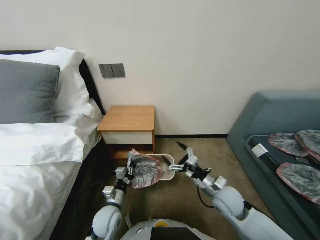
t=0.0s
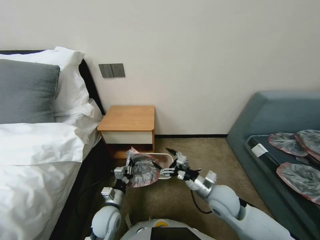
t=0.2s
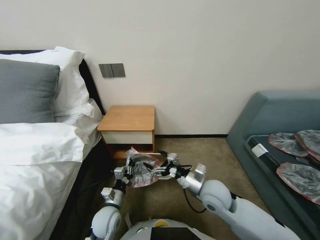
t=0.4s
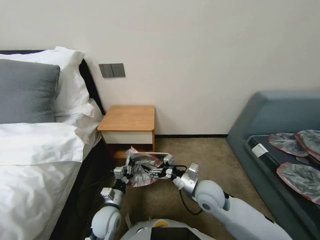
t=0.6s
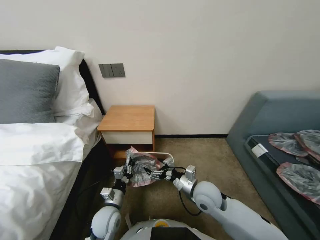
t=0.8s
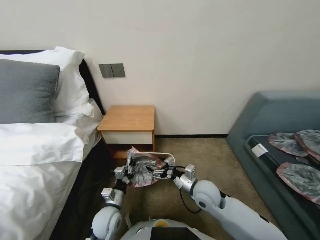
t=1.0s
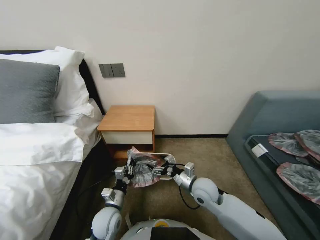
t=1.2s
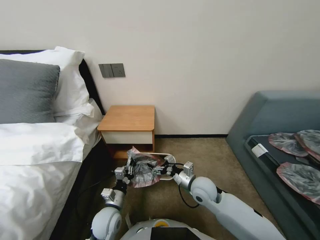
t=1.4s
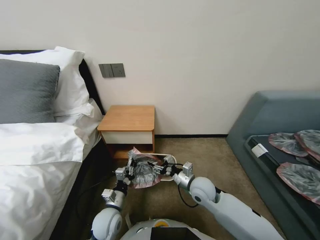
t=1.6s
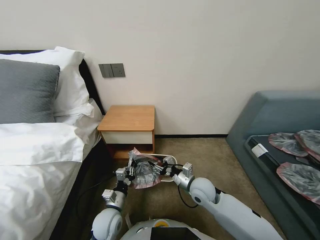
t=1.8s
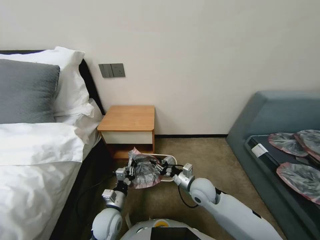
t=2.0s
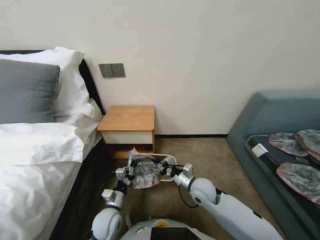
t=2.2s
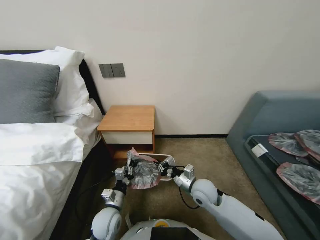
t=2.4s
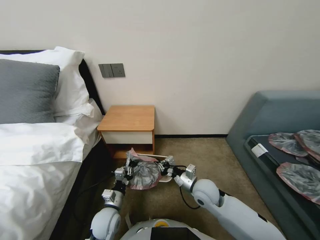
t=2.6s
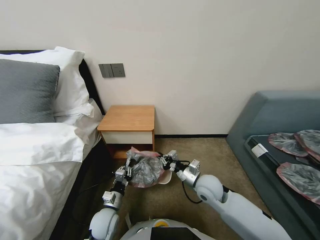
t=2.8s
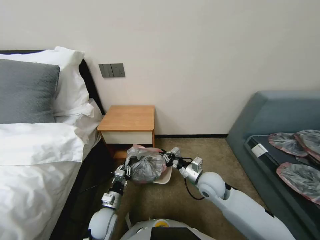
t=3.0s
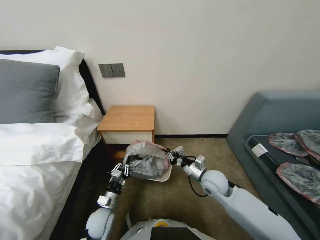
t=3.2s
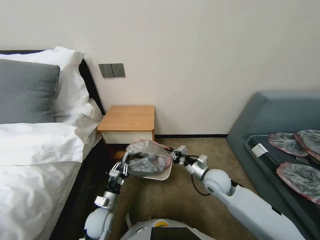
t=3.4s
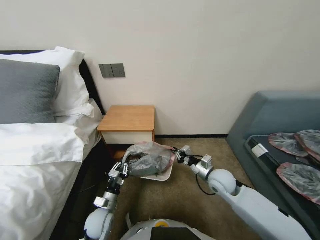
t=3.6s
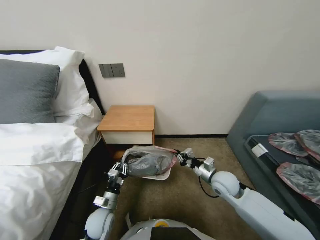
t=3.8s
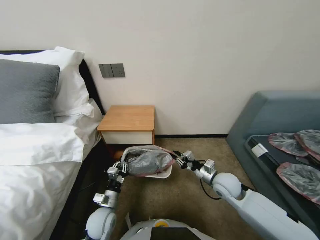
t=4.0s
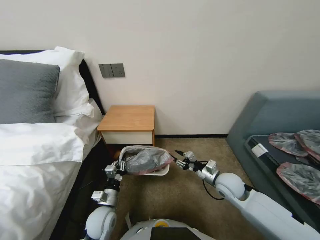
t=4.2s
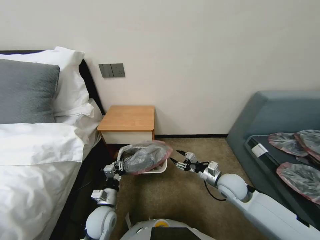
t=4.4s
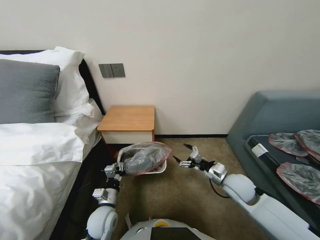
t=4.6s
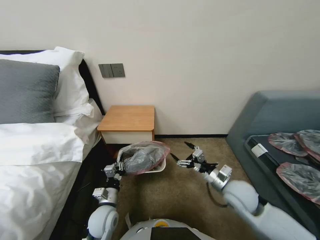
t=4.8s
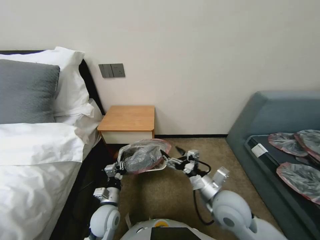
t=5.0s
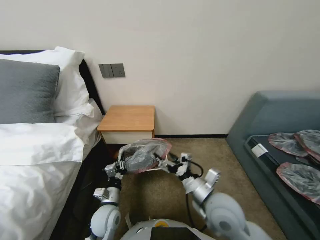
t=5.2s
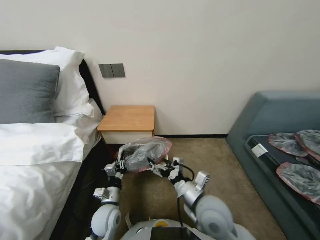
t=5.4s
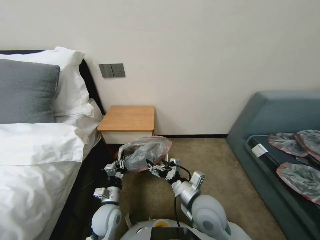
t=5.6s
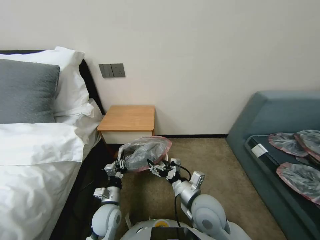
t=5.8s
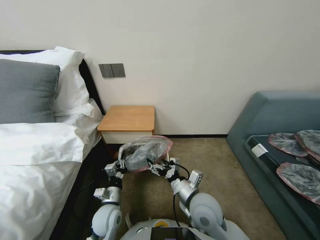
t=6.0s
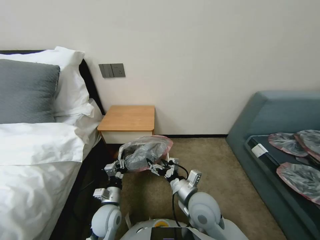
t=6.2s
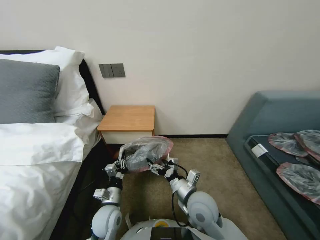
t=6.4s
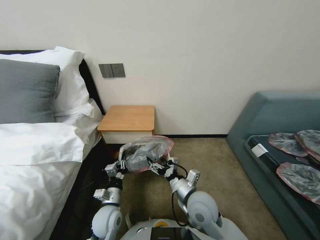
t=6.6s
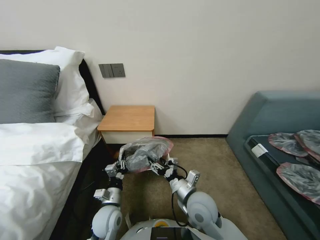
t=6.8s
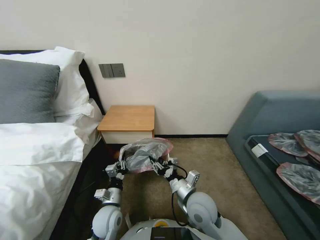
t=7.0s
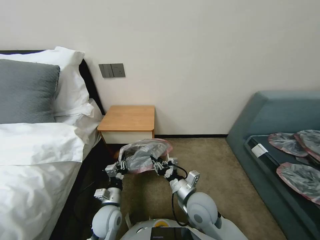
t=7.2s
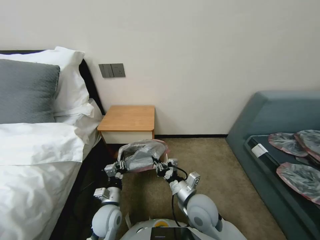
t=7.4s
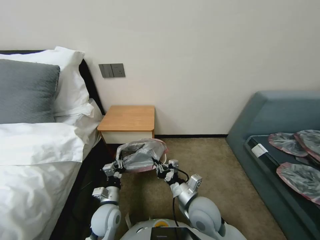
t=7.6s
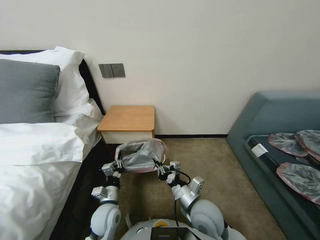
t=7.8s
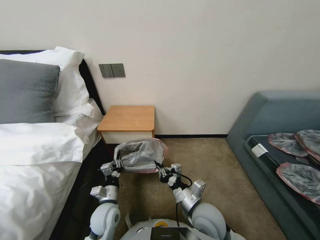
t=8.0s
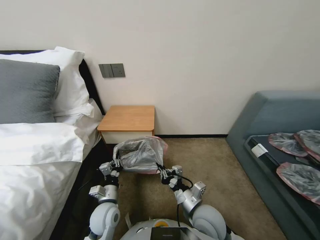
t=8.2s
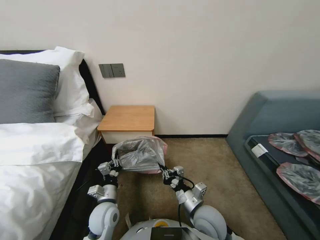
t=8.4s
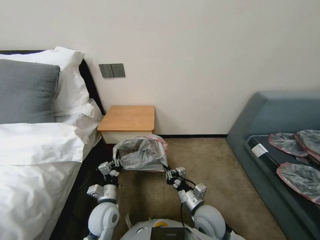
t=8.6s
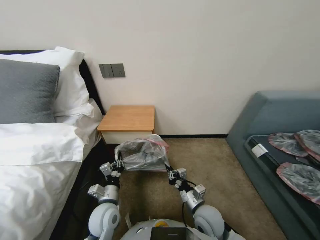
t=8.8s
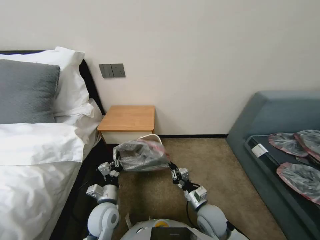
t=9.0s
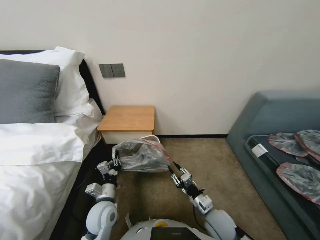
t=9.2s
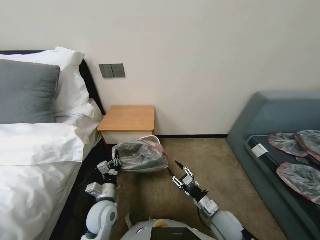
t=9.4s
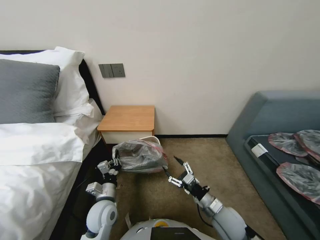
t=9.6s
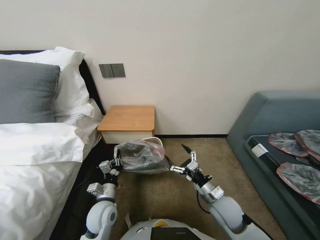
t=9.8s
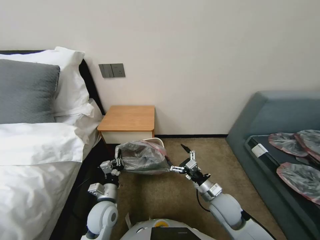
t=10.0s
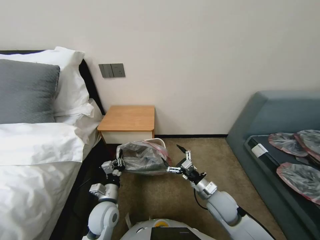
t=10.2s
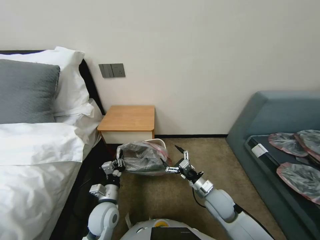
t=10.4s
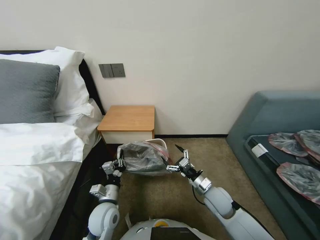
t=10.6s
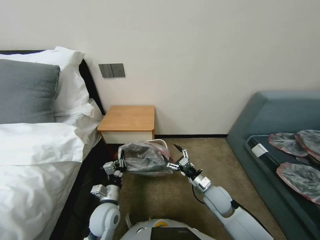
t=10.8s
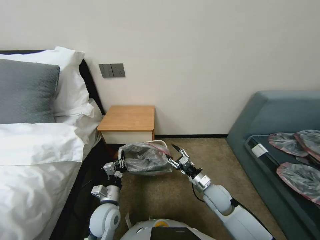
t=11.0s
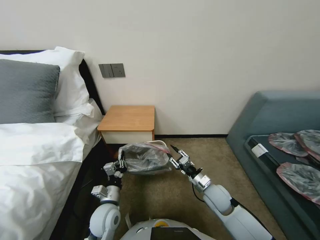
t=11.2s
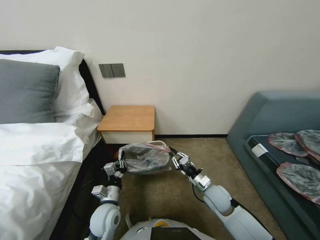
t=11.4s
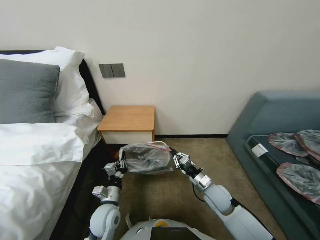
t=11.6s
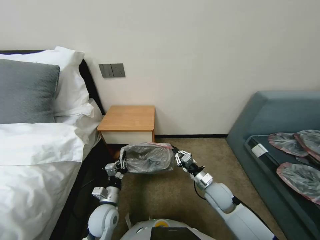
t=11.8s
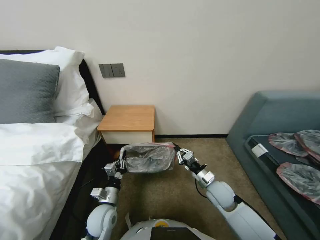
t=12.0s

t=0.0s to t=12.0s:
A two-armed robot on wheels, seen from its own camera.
Task of the whole recording: Pick up the garbage bag from the table and place it over the trash can.
t=0.0s to t=1.6s: The right gripper travels to the left by about 10 cm.
t=1.6s to t=3.0s: The right gripper closes.
t=3.0s to t=4.4s: The right gripper shifts roughly 10 cm to the right, and opens up.
t=4.4s to t=6.0s: The right gripper travels to the left and backward by roughly 15 cm, and opens up.
t=6.0s to t=7.6s: The right gripper closes.
t=7.6s to t=9.0s: The right gripper travels downward by approximately 10 cm.
t=9.0s to t=10.4s: The right gripper moves about 5 cm, and opens.
t=10.4s to t=12.0s: The right gripper closes its fingers.

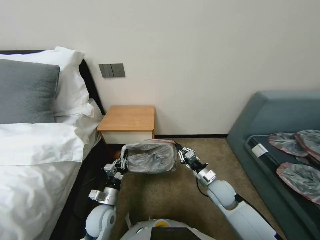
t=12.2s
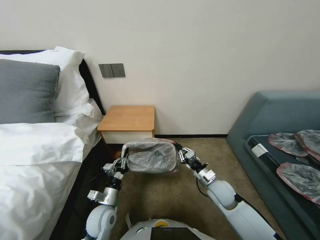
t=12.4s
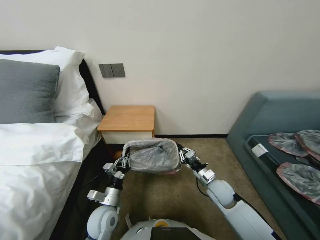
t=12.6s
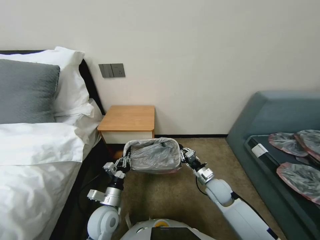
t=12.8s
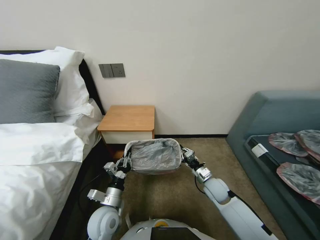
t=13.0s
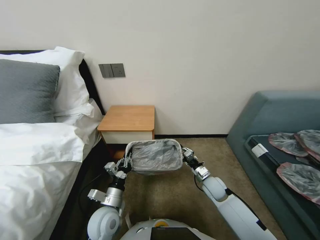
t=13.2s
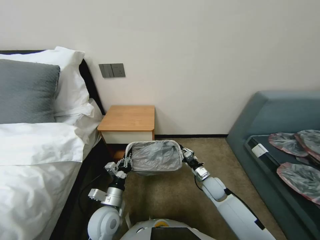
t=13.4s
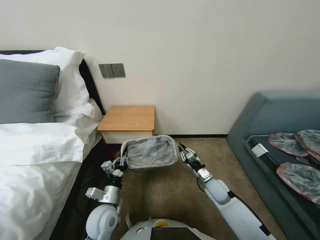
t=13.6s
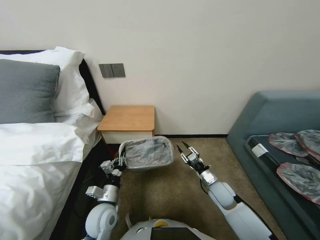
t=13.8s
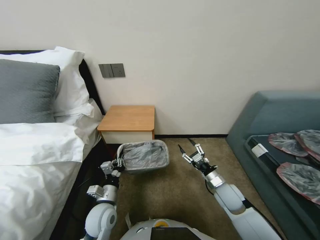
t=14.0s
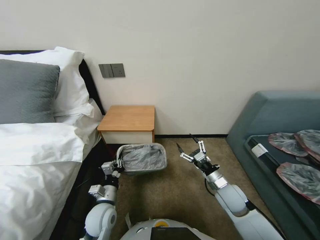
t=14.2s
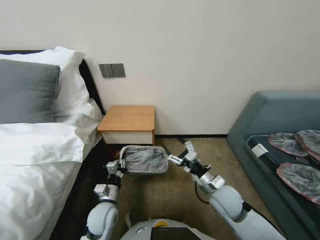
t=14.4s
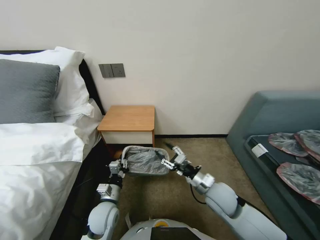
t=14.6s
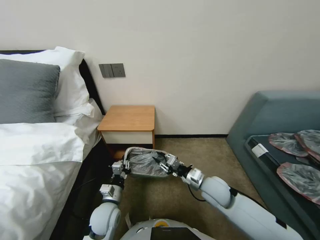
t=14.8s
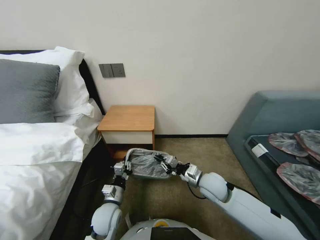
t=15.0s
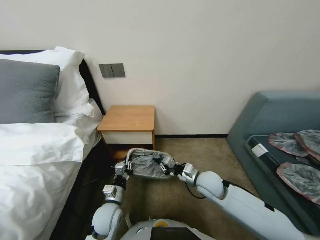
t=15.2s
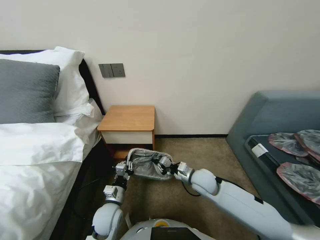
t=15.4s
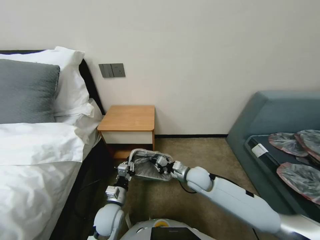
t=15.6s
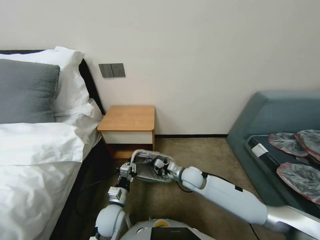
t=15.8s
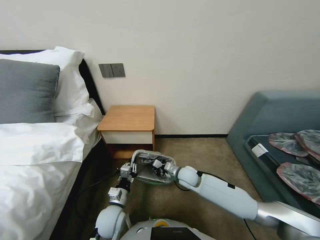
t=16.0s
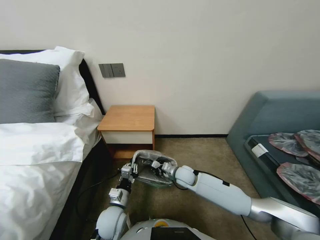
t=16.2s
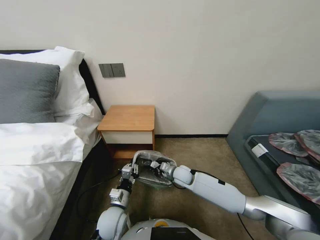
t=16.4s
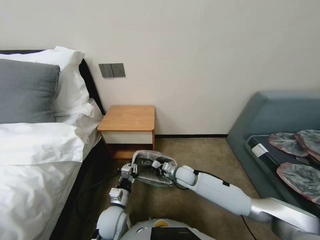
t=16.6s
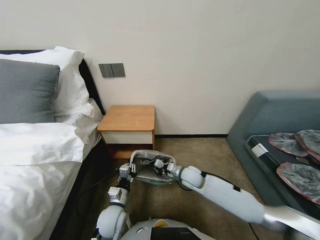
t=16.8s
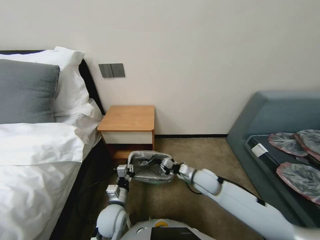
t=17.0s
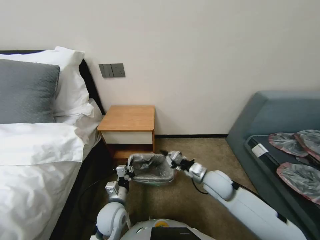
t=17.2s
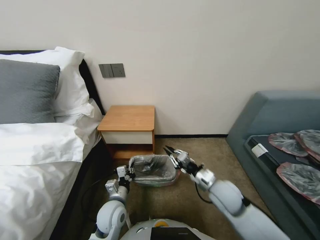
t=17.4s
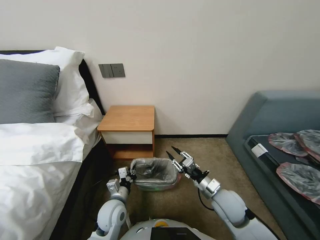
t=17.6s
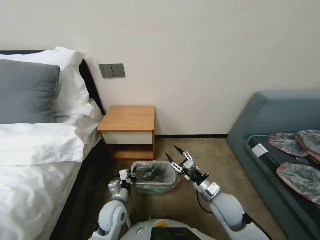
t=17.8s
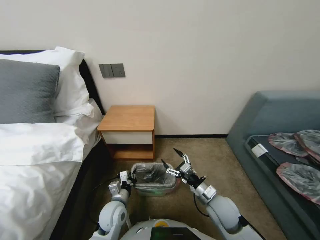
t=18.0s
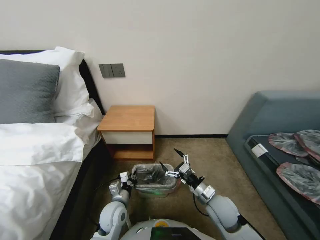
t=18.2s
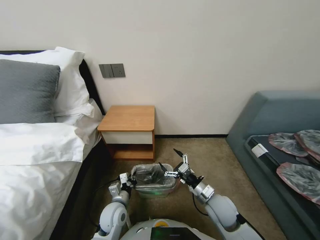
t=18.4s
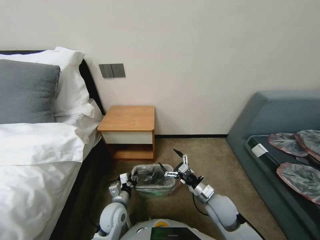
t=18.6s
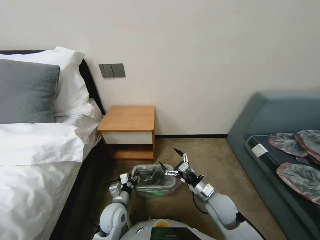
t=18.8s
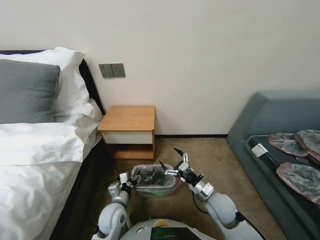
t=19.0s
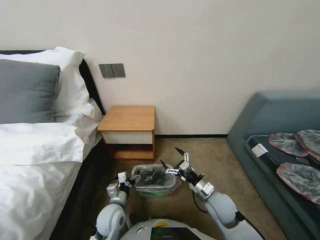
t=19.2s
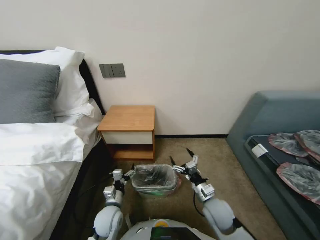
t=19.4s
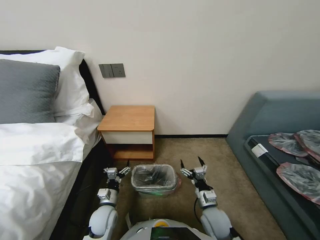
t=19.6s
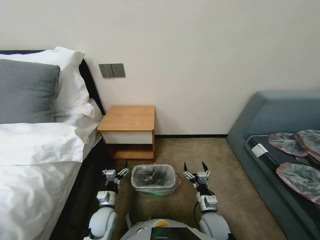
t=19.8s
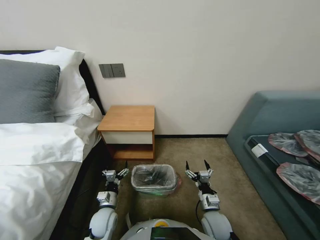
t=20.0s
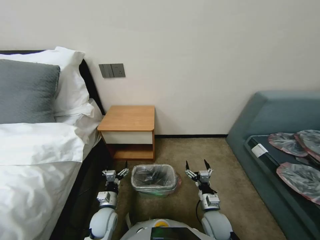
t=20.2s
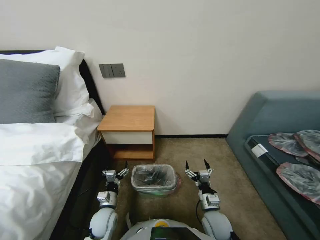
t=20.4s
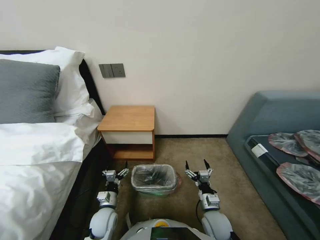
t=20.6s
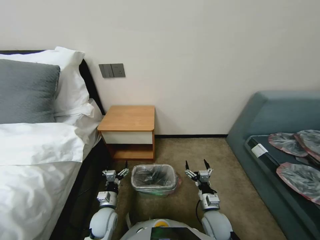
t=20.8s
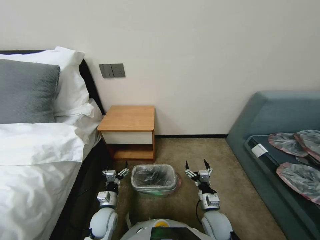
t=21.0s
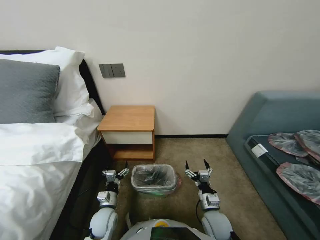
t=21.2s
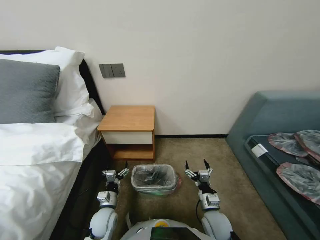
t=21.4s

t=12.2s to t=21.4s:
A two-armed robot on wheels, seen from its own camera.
Task of the whole recording: Pick up the garbage bag from the table and place it over the trash can.
t=13.8s to t=15.2s: The right gripper moves upward and to the left, some 10 cm, and opens, then closes once more.
t=15.2s to t=16.8s: The right gripper travels downward, forward and to the left by some 10 cm.
t=16.8s to t=18.4s: The right gripper travels backward and to the right by approximately 15 cm, and opens.
t=18.4s to t=19.8s: The left gripper changes place by roughly 5 cm, and opens up; the right gripper shifts approximately 5 cm downward.
t=19.8s to t=21.4s: Both grippers stay about where they are.
